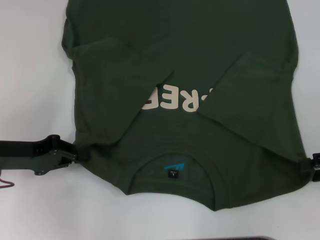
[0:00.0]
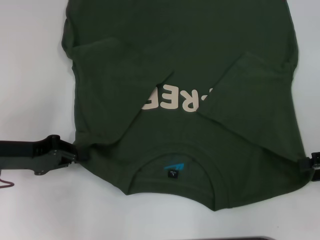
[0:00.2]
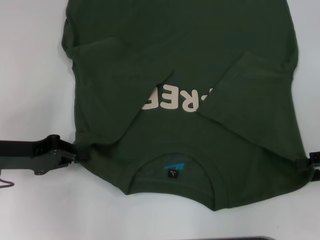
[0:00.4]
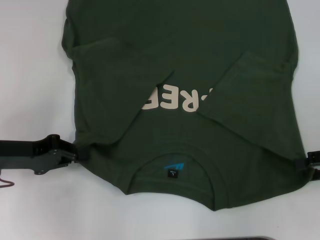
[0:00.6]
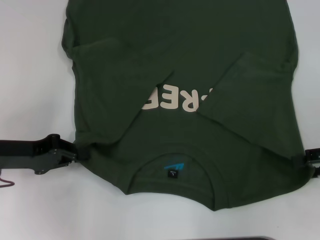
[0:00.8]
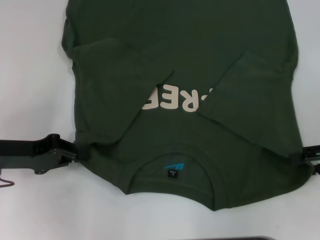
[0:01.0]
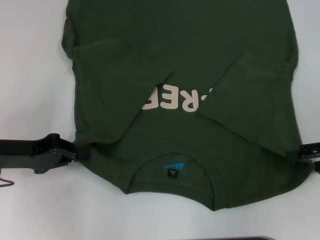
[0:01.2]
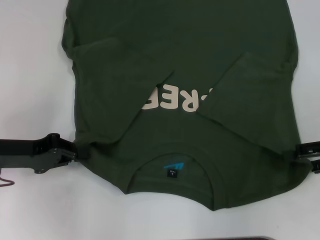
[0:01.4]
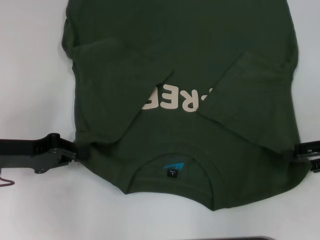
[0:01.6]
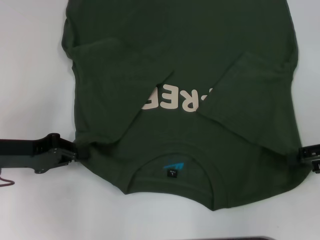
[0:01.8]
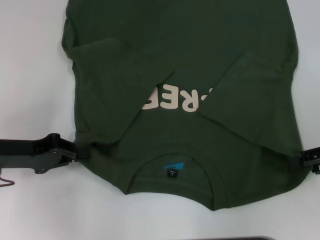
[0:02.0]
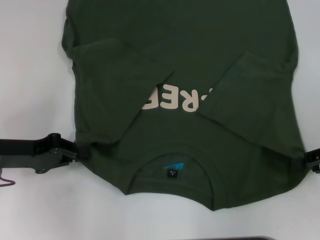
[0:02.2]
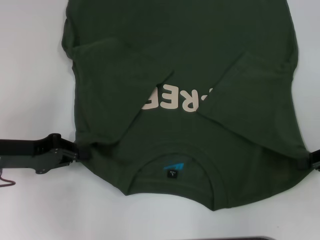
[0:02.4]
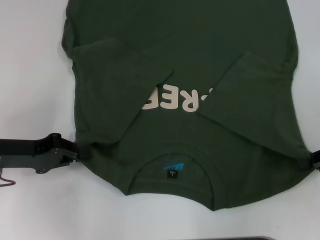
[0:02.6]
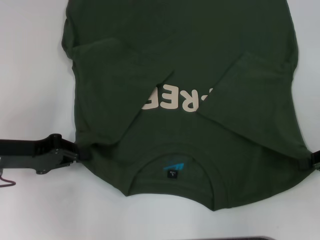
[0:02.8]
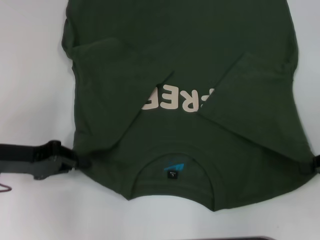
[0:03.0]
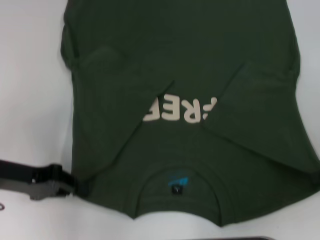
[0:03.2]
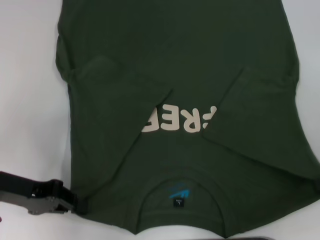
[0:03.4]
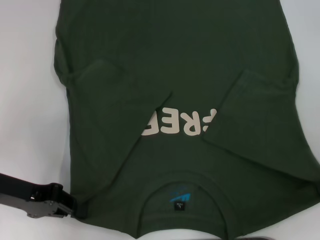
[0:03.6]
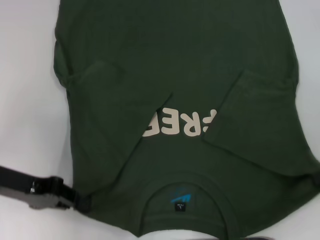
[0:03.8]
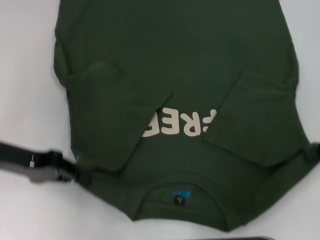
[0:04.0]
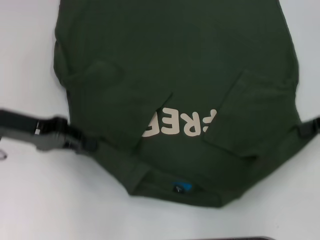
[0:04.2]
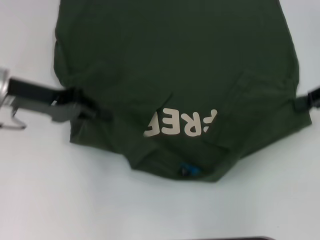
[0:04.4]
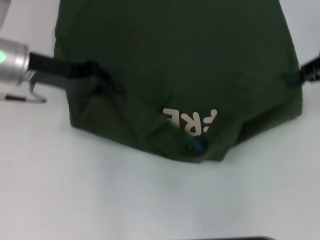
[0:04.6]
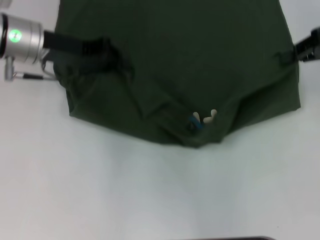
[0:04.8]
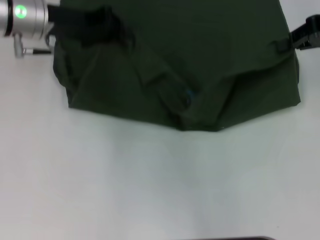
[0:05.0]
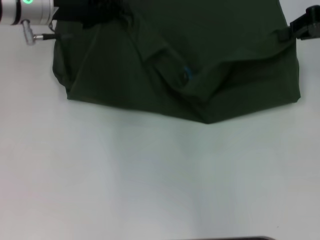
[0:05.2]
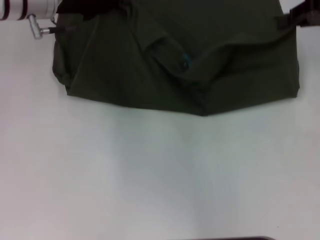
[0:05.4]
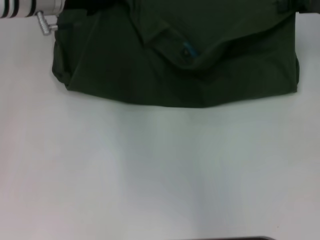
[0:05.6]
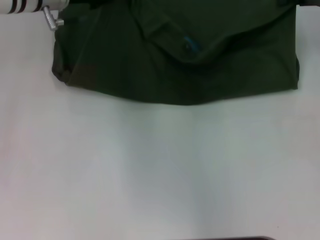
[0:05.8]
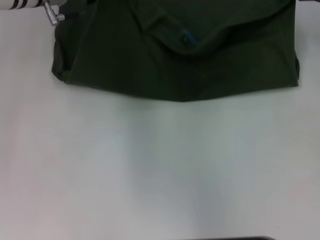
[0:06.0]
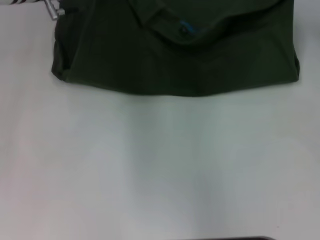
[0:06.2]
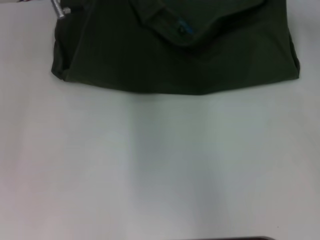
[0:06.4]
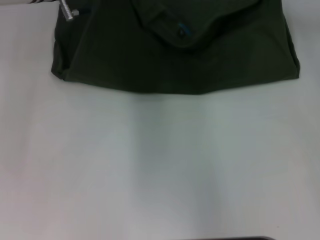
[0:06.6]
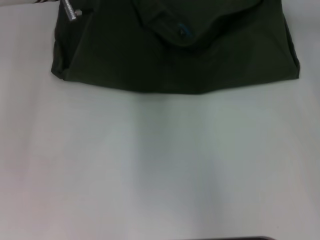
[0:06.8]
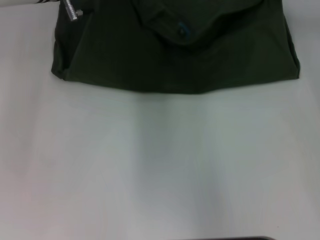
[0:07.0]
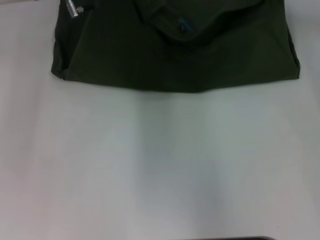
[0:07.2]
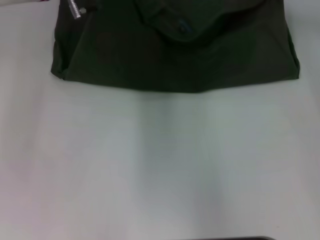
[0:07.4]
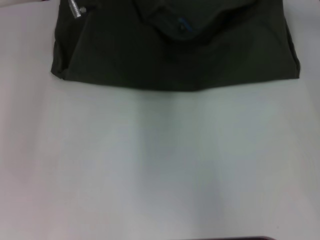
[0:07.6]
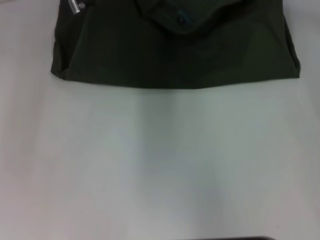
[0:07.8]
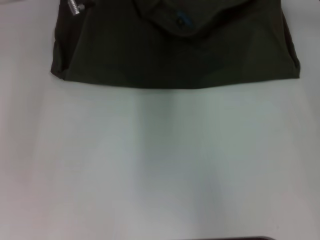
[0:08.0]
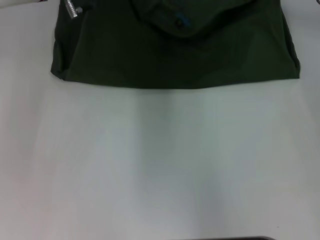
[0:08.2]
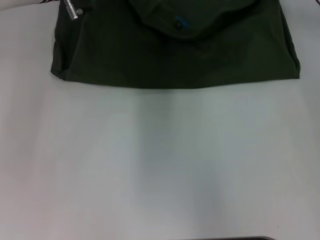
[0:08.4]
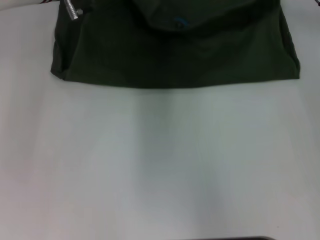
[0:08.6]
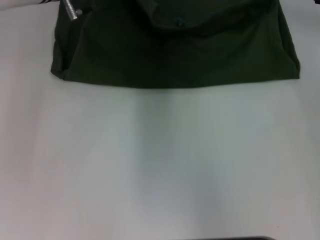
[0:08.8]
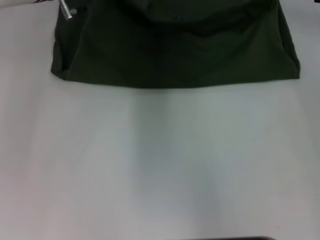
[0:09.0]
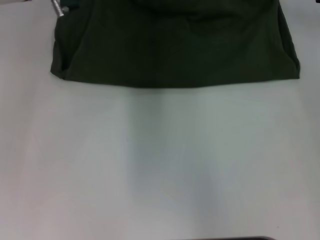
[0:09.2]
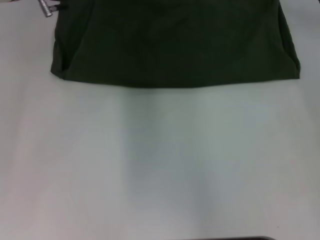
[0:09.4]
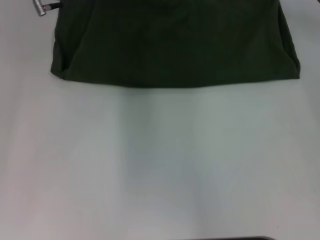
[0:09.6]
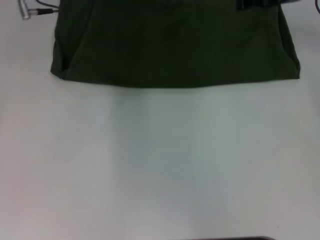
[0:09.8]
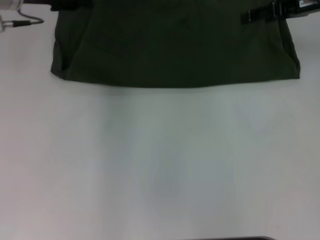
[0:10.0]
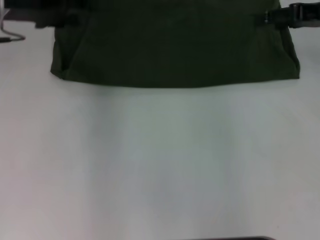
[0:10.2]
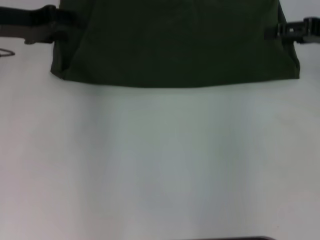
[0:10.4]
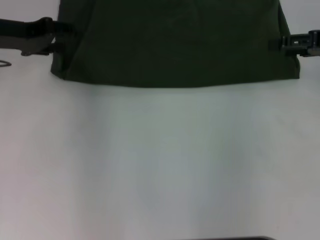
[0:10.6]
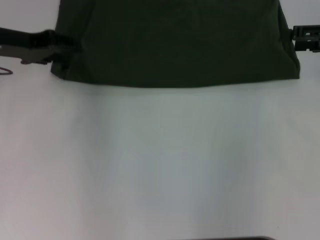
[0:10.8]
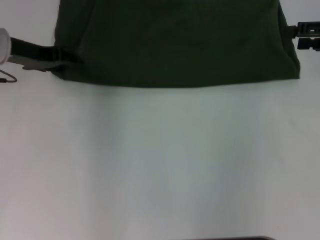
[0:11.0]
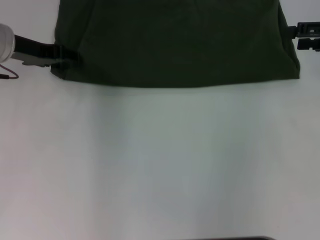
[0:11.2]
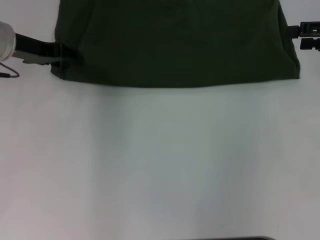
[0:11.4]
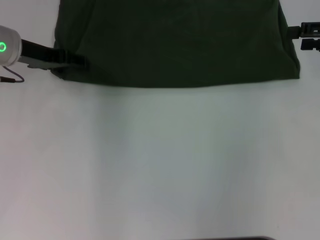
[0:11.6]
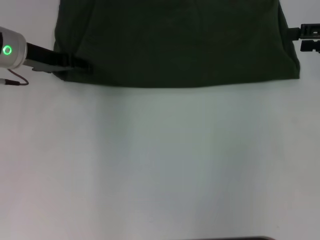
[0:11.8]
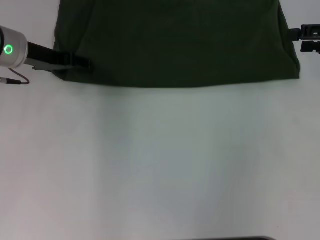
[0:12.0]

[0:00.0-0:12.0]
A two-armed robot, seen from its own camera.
Step, 0:02.8 to 0:09.2: Fold the clothes with your left hand.
Step, 0:02.8 to 0:09.2: Fold the clothes with your right hand.
0:00.0 to 0:01.6: The grippers move only a little.
0:01.6 to 0:03.0: The right gripper closes.
0:03.0 to 0:04.4: The two grippers go some 10 cm forward and upward.
0:04.4 to 0:06.0: The left gripper travels forward and to the right by approximately 15 cm. Meanwhile the right gripper is displaced forward by approximately 10 cm.
0:06.0 to 0:07.6: The right gripper shifts approximately 5 cm to the left.
0:07.6 to 0:09.0: The left gripper opens its fingers.
0:09.0 to 0:10.4: The right gripper travels backward and to the right by approximately 15 cm, and opens up; the left gripper travels to the left and backward by some 15 cm.
0:10.4 to 0:12.0: The left gripper moves approximately 5 cm.

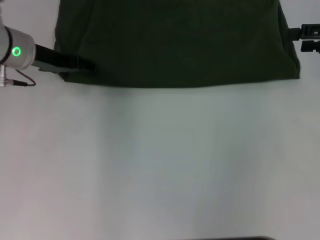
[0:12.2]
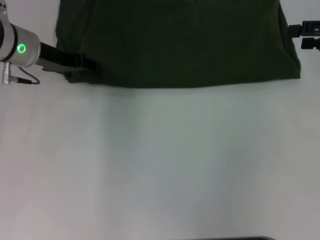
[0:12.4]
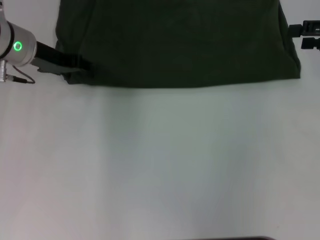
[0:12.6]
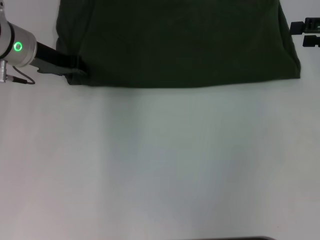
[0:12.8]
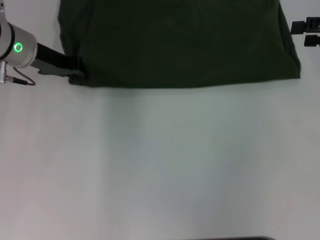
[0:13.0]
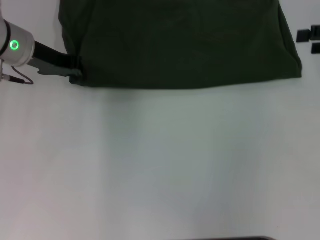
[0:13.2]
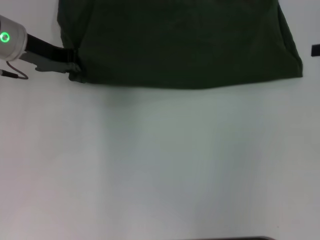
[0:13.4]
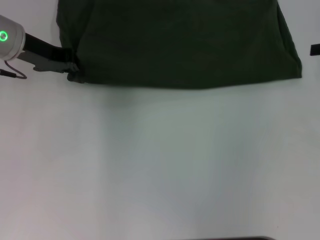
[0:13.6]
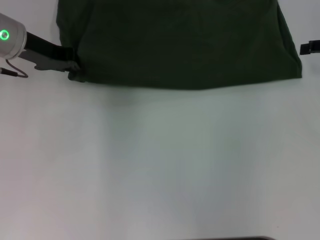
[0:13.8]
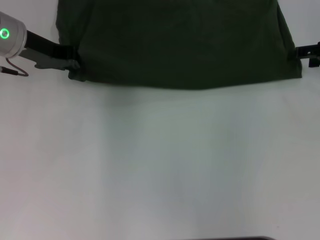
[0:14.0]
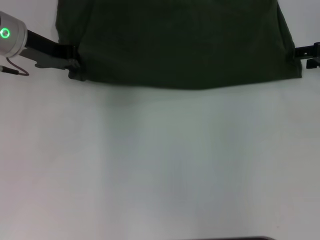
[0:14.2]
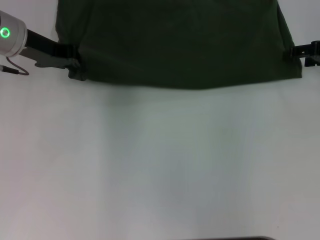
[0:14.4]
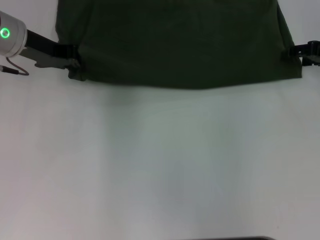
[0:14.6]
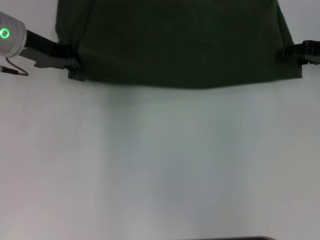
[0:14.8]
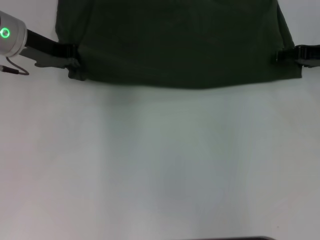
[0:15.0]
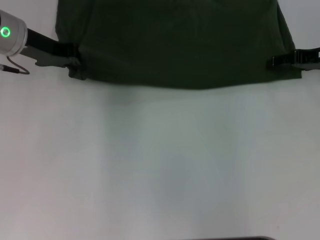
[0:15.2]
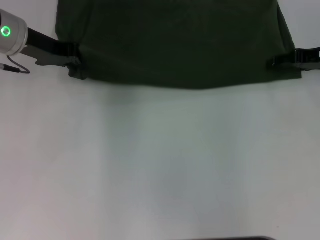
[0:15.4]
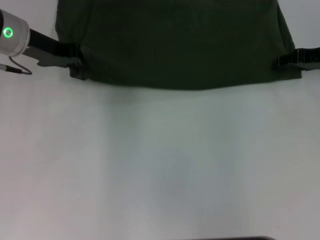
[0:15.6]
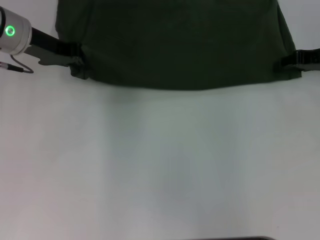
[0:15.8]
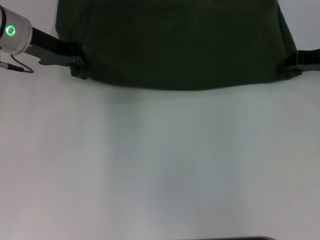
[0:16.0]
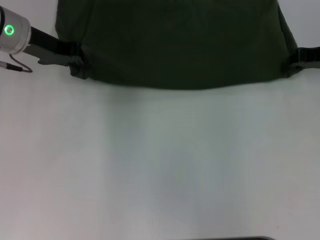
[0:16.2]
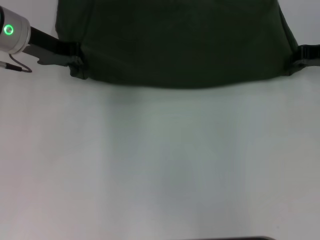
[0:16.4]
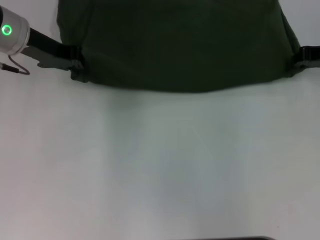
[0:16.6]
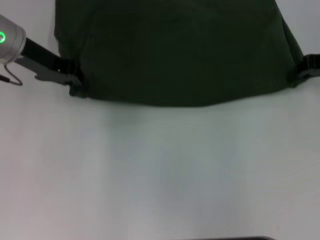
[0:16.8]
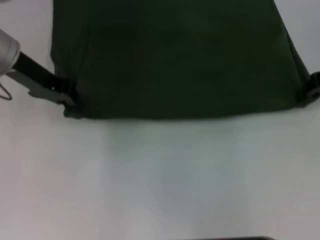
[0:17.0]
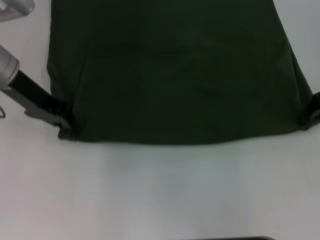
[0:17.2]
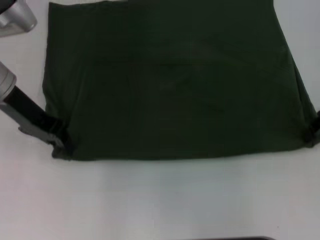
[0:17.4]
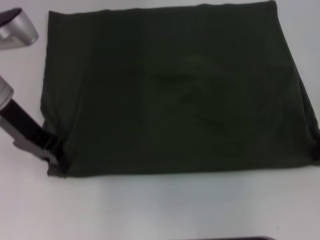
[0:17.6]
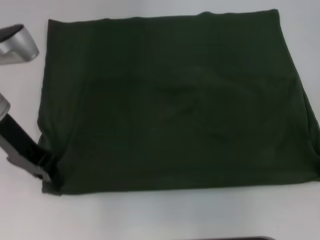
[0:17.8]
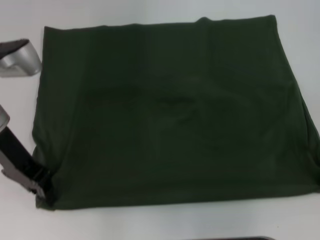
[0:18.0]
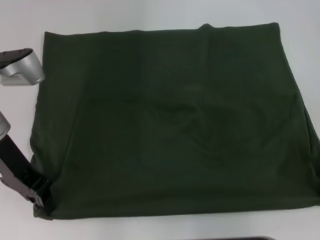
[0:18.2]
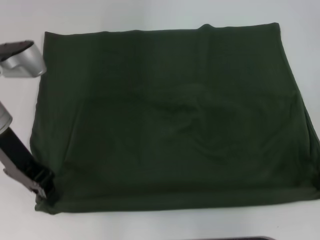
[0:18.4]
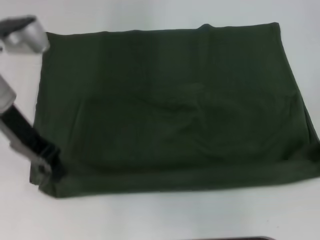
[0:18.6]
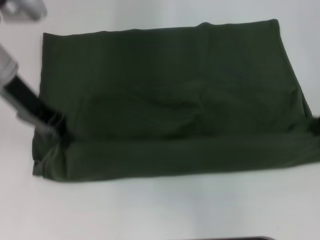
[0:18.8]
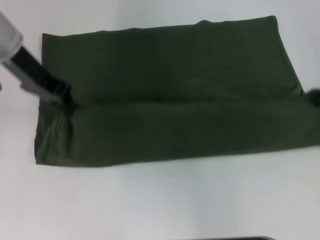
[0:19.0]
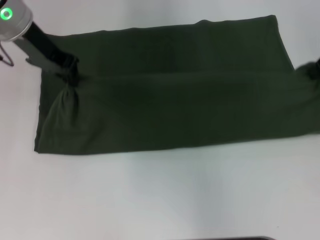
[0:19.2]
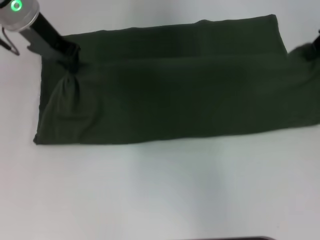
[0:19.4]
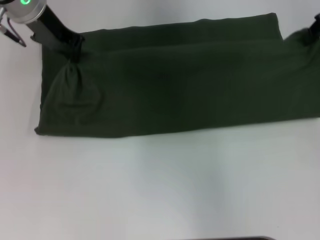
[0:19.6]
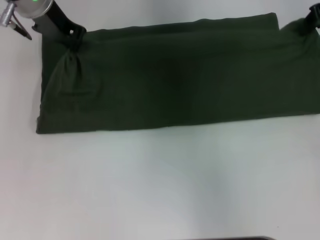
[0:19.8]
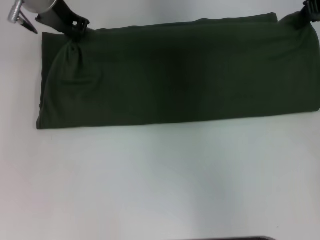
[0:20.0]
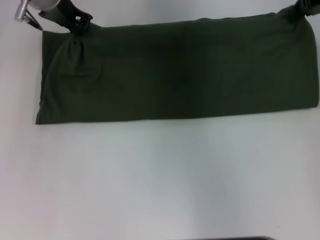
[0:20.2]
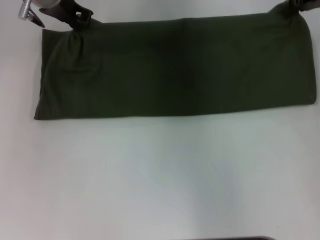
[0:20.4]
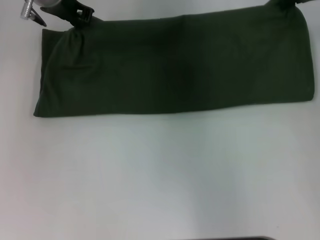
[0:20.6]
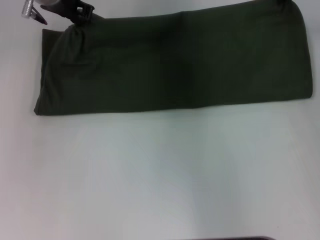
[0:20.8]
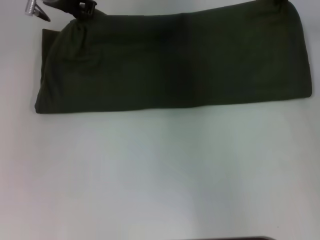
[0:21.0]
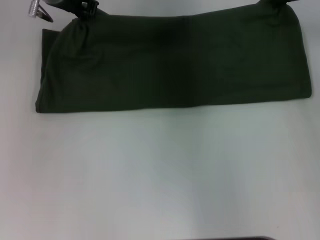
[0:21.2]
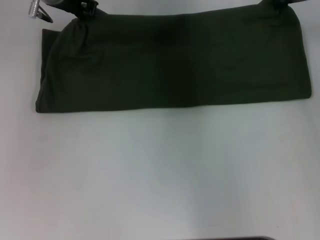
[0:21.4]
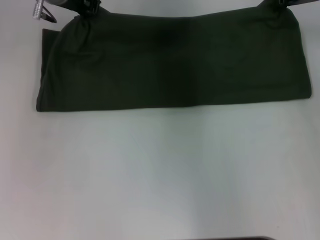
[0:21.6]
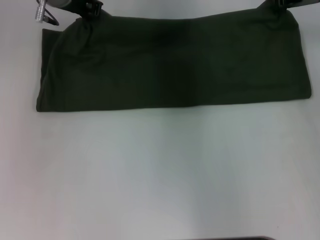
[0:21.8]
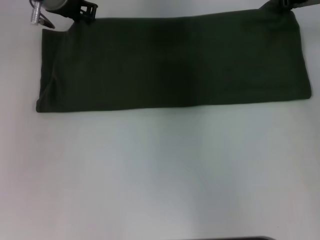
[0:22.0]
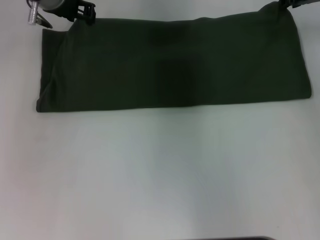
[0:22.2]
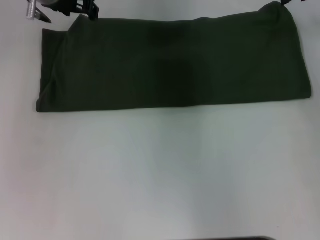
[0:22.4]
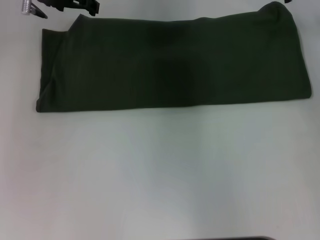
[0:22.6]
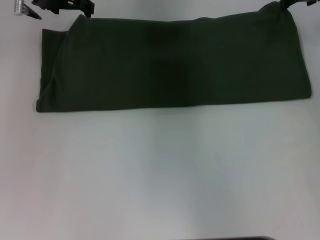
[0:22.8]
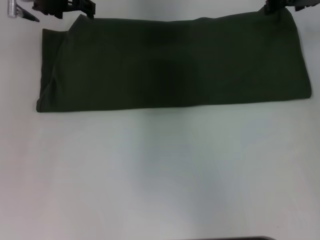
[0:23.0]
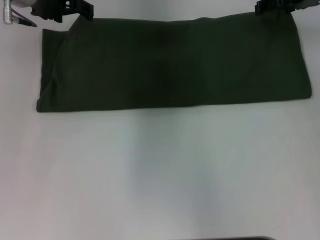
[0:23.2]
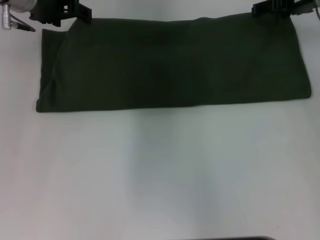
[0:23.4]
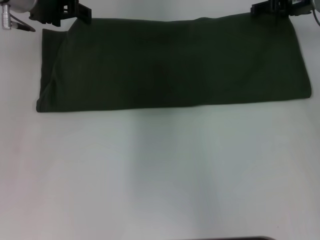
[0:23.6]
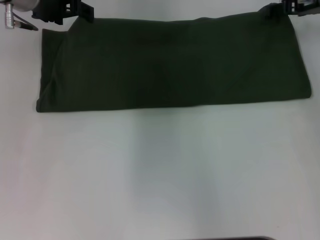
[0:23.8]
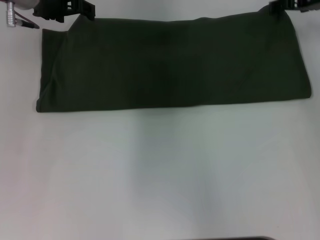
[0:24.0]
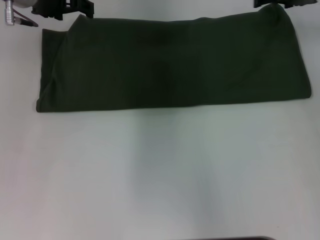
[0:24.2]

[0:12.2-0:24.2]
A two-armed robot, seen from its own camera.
Step, 0:12.2 to 0:18.4: Pull the clothes with your left hand.
Step, 0:12.2 to 0:18.4: Pull the clothes with your right hand.
Step, 0:18.6 to 0:22.6: Fold the clothes with your left hand.
Step, 0:18.6 to 0:22.6: Fold the clothes with your right hand.
0:12.2 to 0:13.8: The left gripper closes.
0:13.8 to 0:15.2: The right gripper heads to the left, covering some 5 cm.
0:15.2 to 0:16.6: The right gripper closes up.
0:16.6 to 0:18.2: The grippers both shift backward by some 10 cm.
0:18.2 to 0:19.8: The right gripper goes about 15 cm forward and upward; the left gripper moves forward, to the right and upward, approximately 15 cm.
0:19.8 to 0:21.2: The right gripper moves about 5 cm.
0:21.2 to 0:22.6: The left gripper opens. The right gripper opens.
0:22.6 to 0:24.2: The right gripper opens its fingers.
